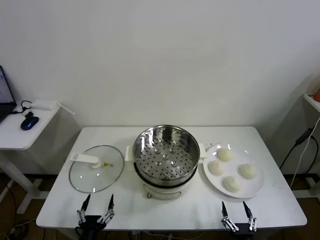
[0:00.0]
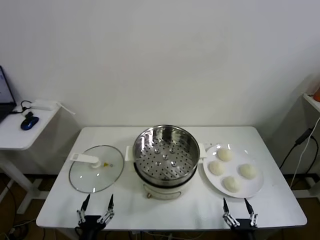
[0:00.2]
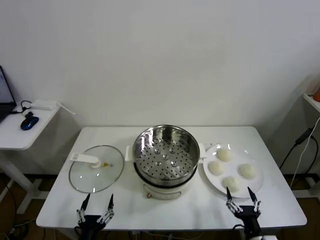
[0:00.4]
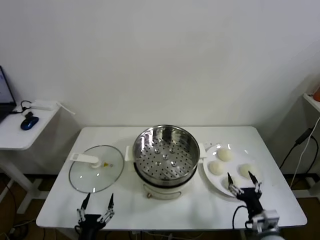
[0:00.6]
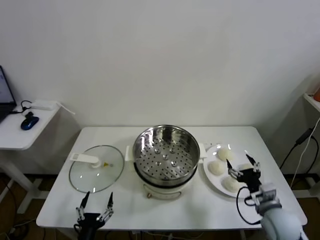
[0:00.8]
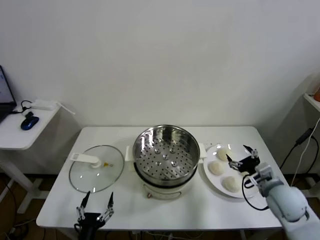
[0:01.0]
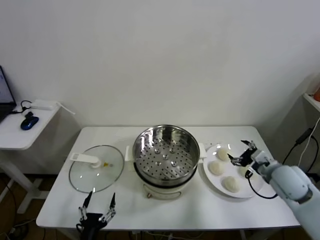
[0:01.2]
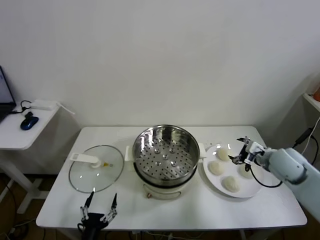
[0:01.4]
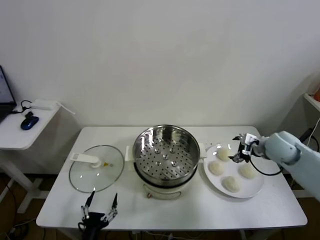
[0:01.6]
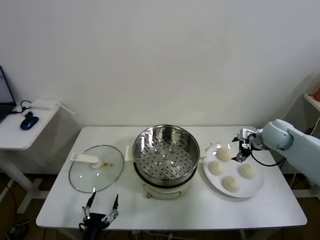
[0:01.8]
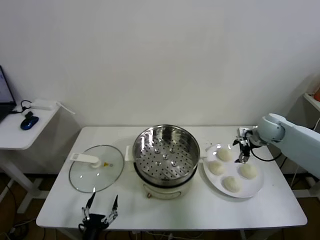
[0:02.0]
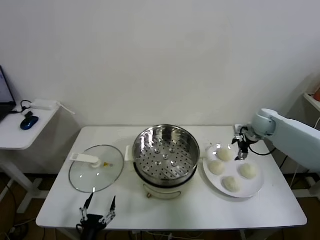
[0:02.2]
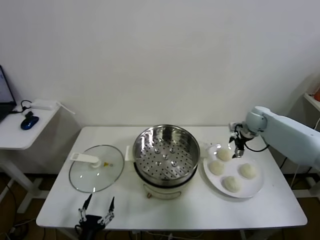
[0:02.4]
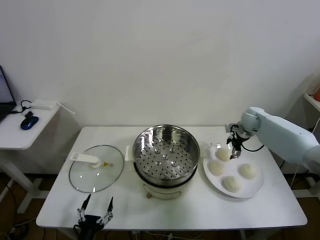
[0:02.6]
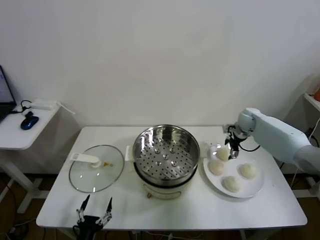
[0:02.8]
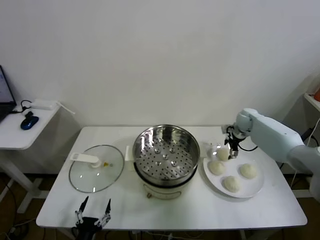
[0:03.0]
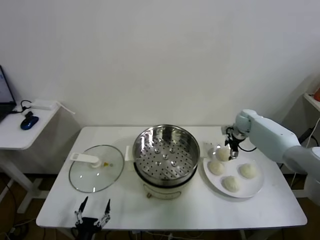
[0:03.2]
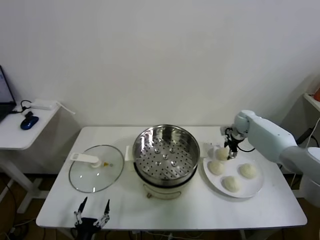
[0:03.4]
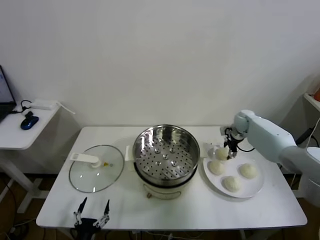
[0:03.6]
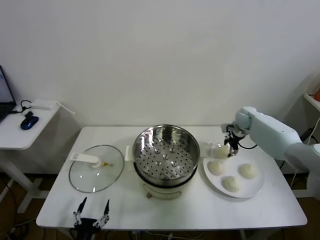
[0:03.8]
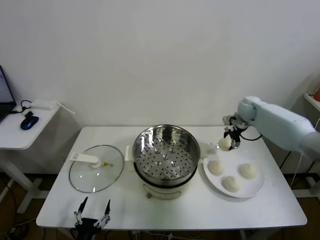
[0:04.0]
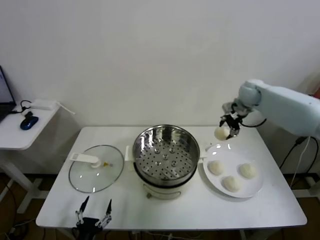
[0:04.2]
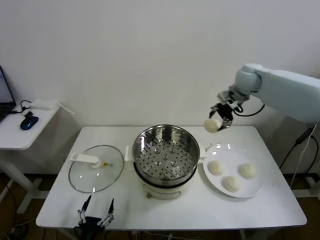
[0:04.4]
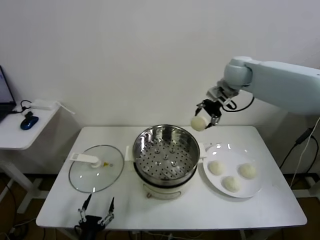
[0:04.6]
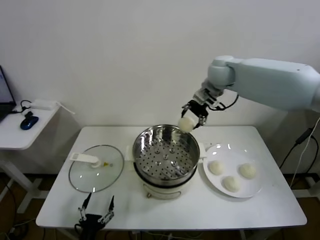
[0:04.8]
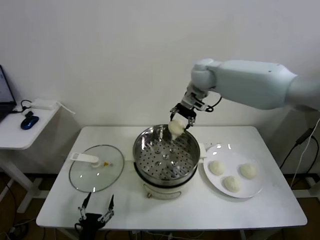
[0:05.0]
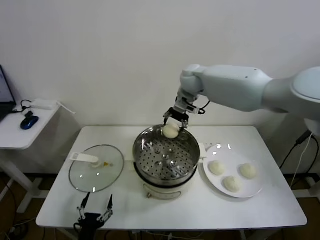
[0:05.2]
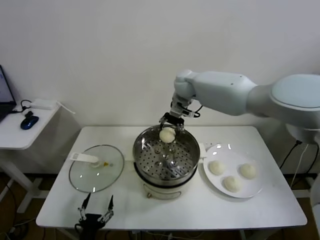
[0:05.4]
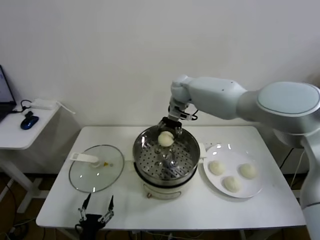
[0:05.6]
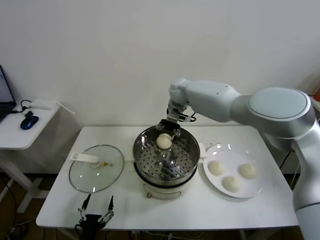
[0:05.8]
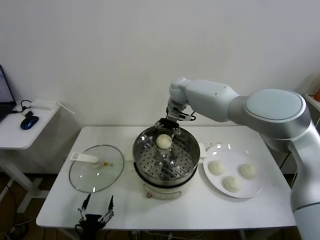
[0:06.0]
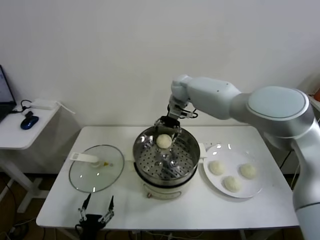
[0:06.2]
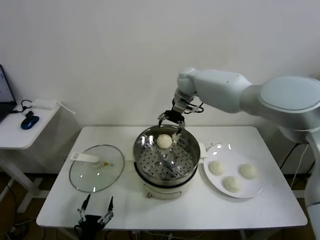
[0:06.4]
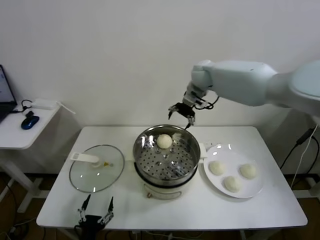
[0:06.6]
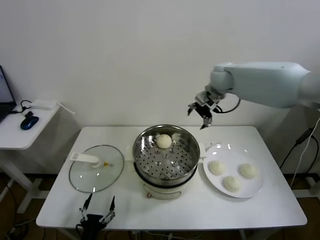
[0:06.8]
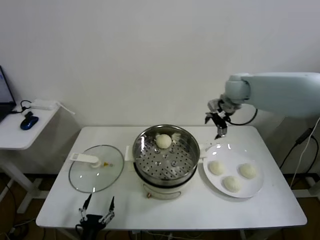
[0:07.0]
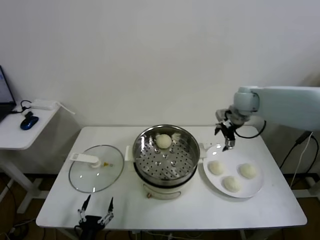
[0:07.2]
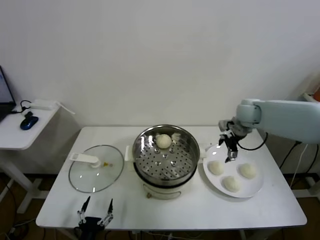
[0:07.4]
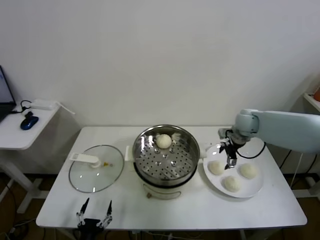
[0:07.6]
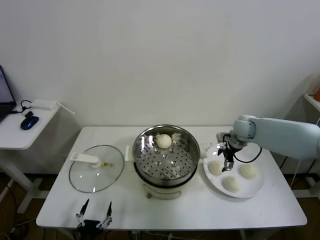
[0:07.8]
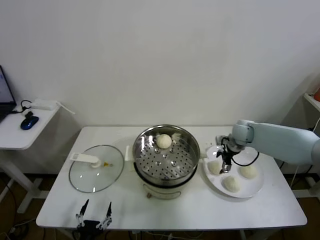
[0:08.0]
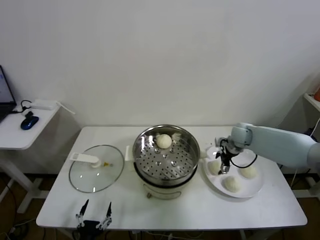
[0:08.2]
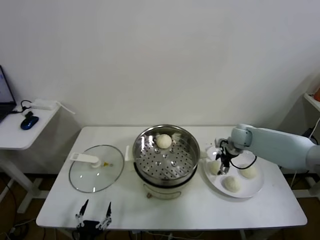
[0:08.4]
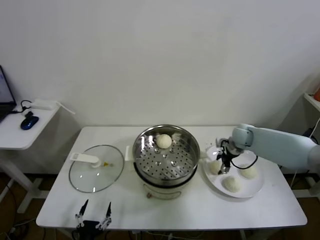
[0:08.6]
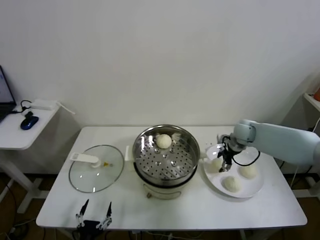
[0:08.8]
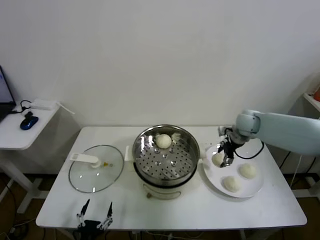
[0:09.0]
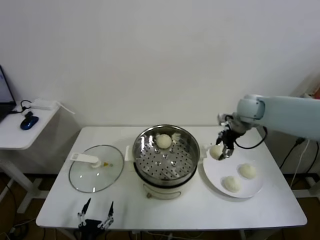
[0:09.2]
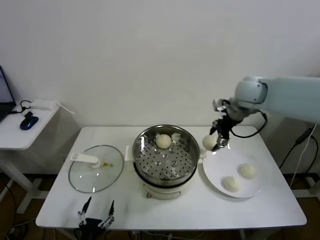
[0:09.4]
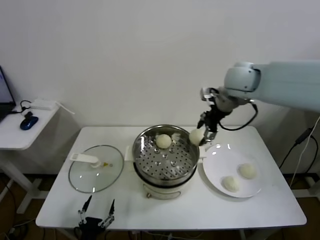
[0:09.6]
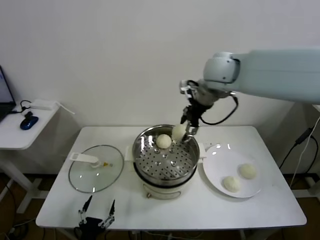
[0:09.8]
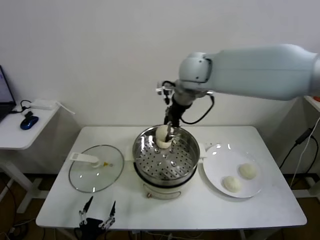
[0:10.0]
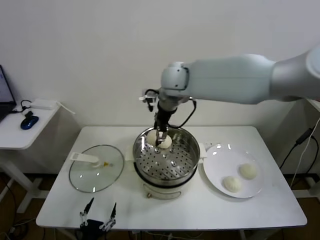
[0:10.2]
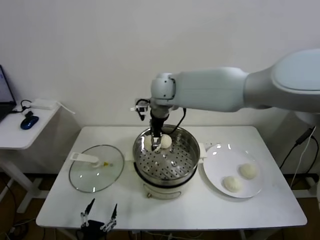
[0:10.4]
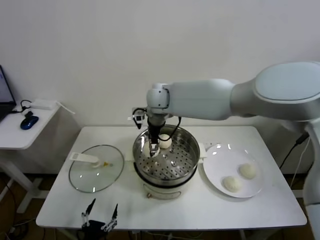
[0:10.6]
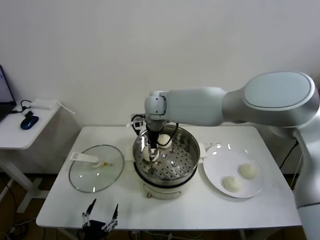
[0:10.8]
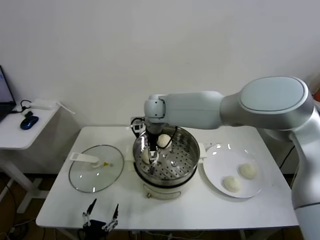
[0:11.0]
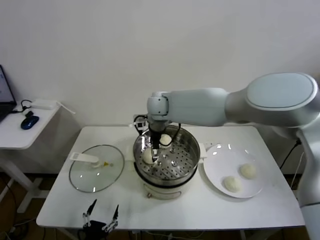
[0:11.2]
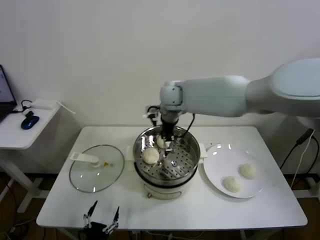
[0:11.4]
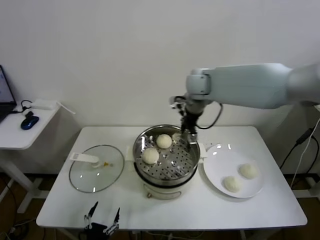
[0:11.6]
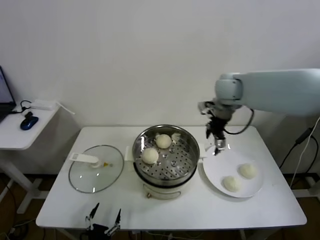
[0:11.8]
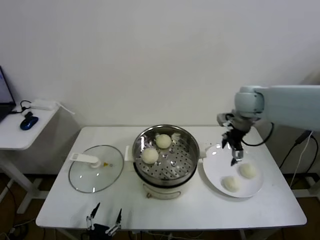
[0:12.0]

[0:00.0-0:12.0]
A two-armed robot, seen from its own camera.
Task of the whole recording: take steamed baozi put them in steamer.
Step, 0:00.0 to 0:03.6: Grasp the baozi in the plate with right gripper.
Step, 0:03.8 to 0:06.2: Place the baozi on the steamer with right gripper.
Step, 0:06.4 to 0:08.8: Grasp the baozi in the plate with right gripper.
Step, 0:09.0 to 0:11.2: Place the baozi on the steamer with right gripper.
0:01.6 to 0:03.0: The right gripper goes some 15 cm forward.
0:03.0 to 0:04.4: The right gripper travels upward by some 25 cm, and closes up.
0:04.4 to 0:06.0: The right gripper heads to the left and downward, covering about 20 cm, and opens.
0:06.0 to 0:07.6: The right gripper heads to the right and backward, covering approximately 25 cm.
0:07.6 to 0:09.0: The right gripper moves about 5 cm downward and comes back, and closes up.
0:09.0 to 0:10.4: The right gripper heads to the left, covering approximately 30 cm.
0:10.4 to 0:12.0: The right gripper moves to the right, roughly 30 cm, and opens its fingers.

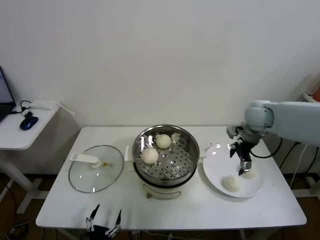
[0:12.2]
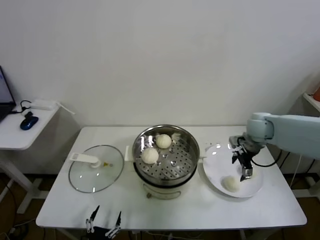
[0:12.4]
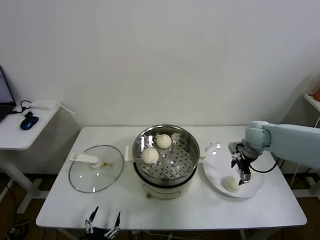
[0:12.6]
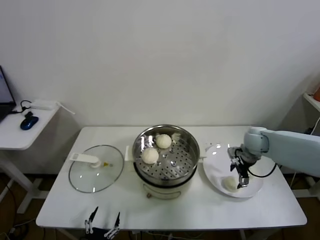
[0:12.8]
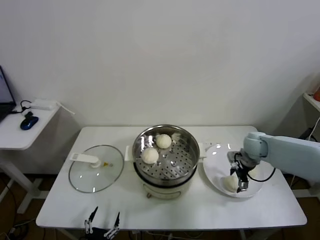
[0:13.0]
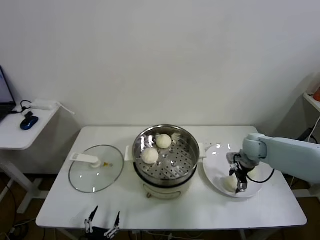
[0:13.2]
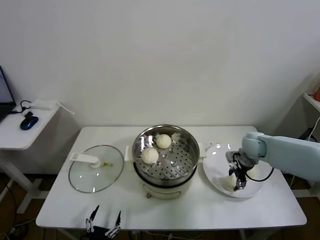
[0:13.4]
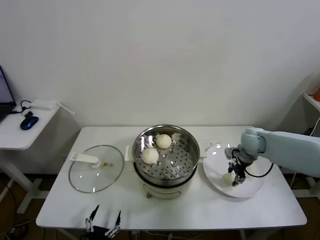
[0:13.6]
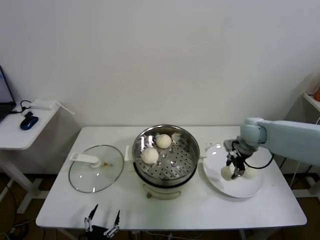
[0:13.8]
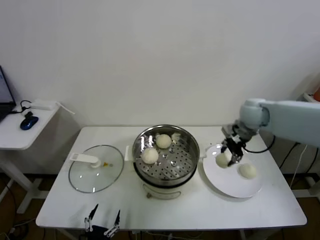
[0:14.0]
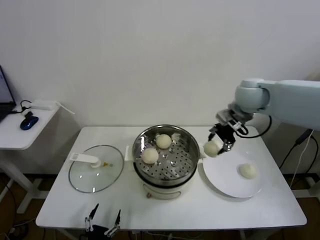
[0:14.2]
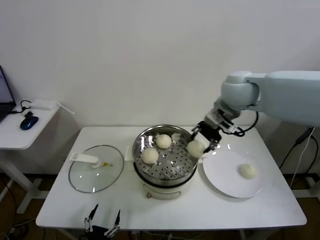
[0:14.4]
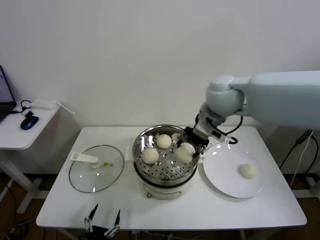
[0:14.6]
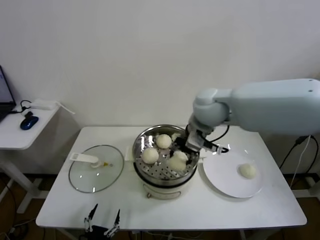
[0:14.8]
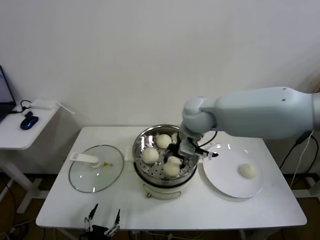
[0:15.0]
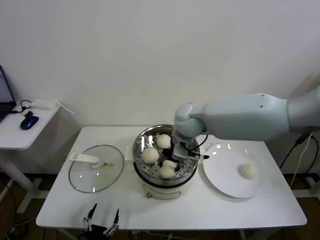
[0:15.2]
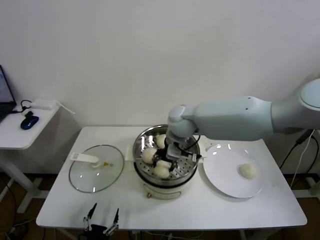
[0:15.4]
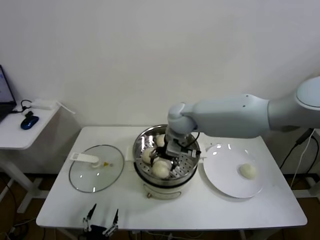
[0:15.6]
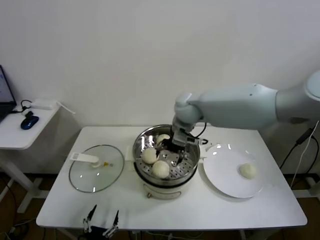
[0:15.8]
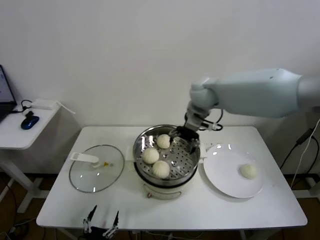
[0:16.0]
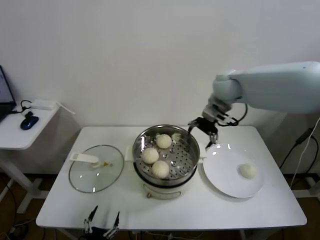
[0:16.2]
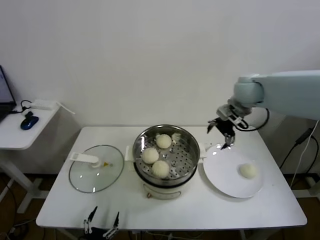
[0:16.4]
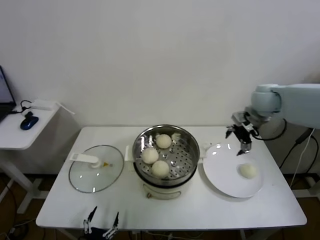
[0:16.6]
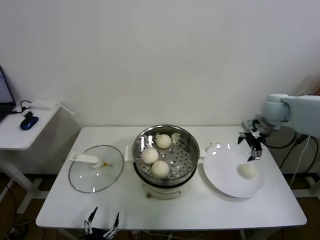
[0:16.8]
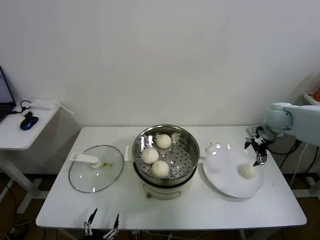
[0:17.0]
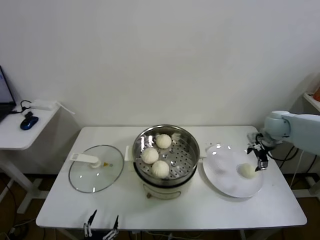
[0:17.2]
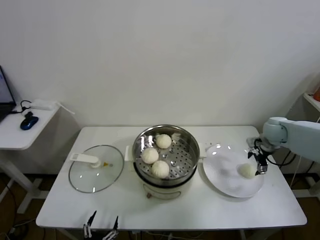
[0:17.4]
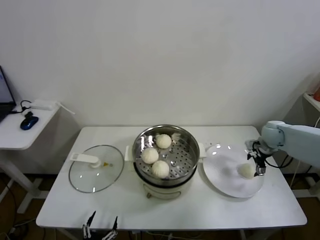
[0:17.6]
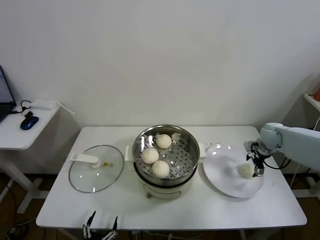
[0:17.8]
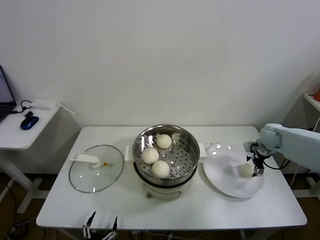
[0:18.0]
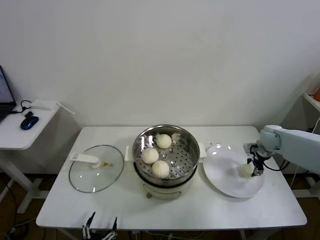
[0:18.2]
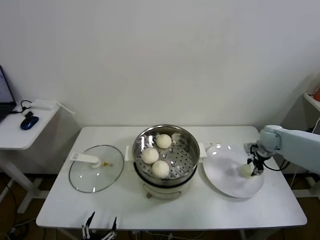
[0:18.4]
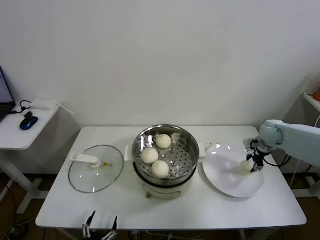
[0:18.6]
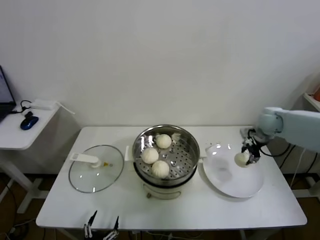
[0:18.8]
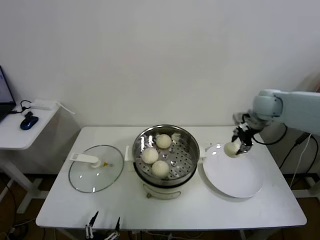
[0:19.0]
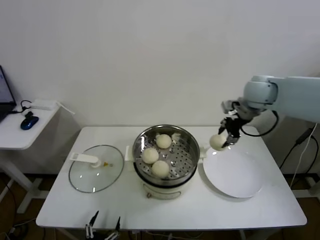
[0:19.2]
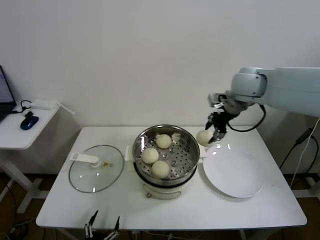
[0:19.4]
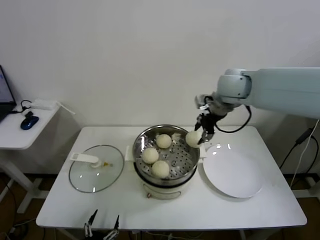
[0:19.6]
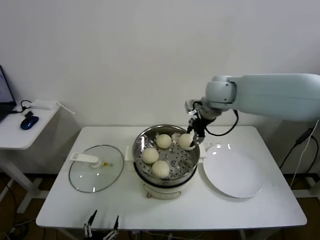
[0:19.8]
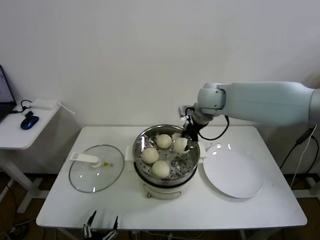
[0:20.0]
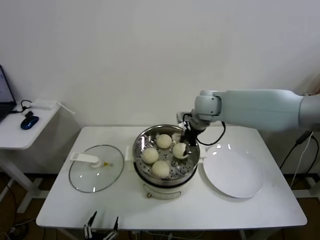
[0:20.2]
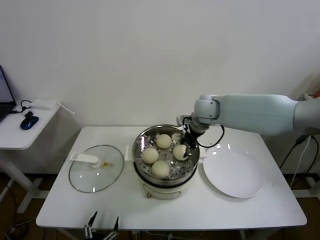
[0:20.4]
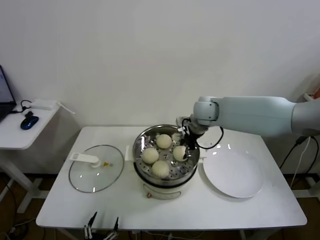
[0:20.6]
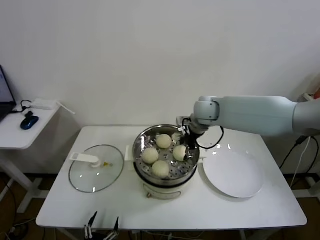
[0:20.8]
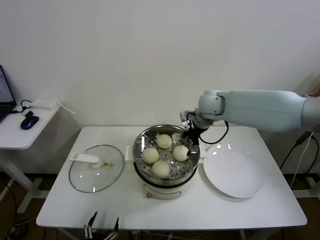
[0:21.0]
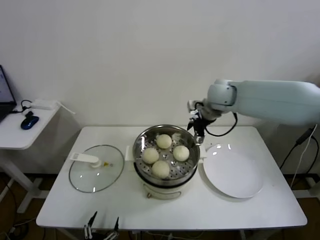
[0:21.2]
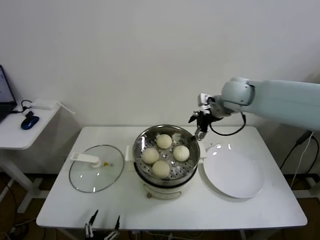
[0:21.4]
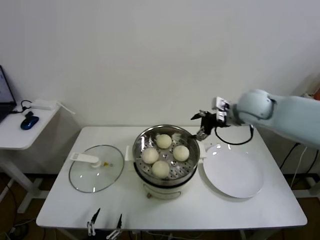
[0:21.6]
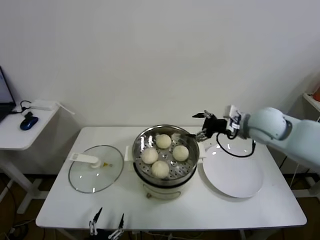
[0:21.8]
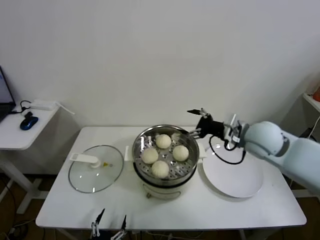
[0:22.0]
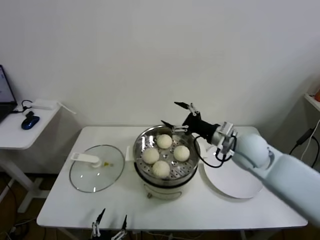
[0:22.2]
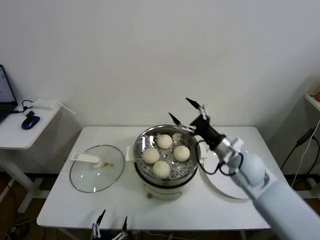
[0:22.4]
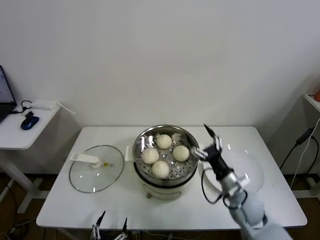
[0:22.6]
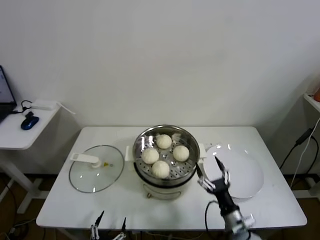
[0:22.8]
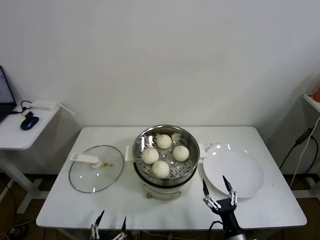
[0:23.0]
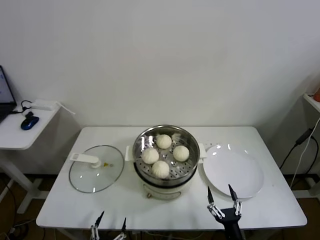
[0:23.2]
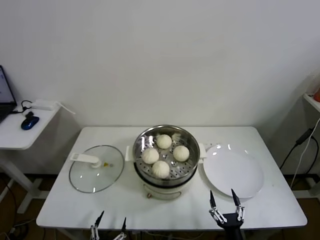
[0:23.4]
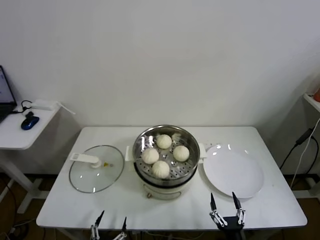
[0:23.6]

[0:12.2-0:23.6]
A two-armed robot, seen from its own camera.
Task of the whole recording: take steamed baozi put them in steamer.
Step, 0:12.2 to 0:13.4: Grasp the baozi in the plate with right gripper.
Step, 0:13.6 to 0:15.6: Place the baozi on the steamer with right gripper.
Step, 0:15.8 to 0:18.2: Grasp the baozi in the plate with right gripper.
Step, 0:18.4 to 0:21.0: Place the baozi on the steamer with right gripper.
0:12.2 to 0:13.6: The right gripper heads downward, covering roughly 10 cm, and closes its fingers.
0:13.6 to 0:15.0: The right gripper goes some 30 cm to the left and upward.
0:15.0 to 0:16.4: The right gripper goes roughly 15 cm to the right, and opens up.
0:16.4 to 0:17.8: The right gripper moves downward and to the right, roughly 25 cm.
0:17.8 to 0:19.4: The right gripper goes approximately 30 cm upward and to the left, and closes up.
0:19.4 to 0:20.8: The right gripper goes approximately 15 cm downward and to the left, and opens up.
0:20.8 to 0:22.2: The right gripper travels backward and to the right by roughly 15 cm, and opens.
0:22.2 to 0:23.6: The right gripper moves downward and backward, about 40 cm.
